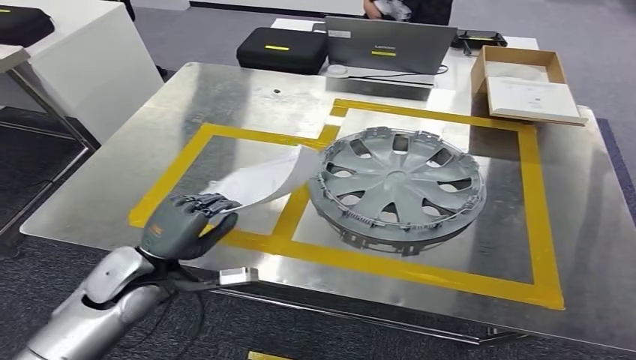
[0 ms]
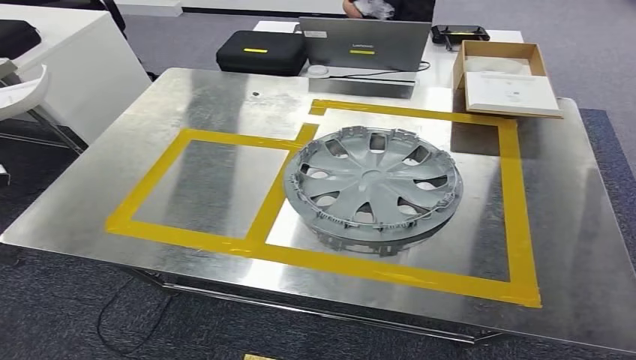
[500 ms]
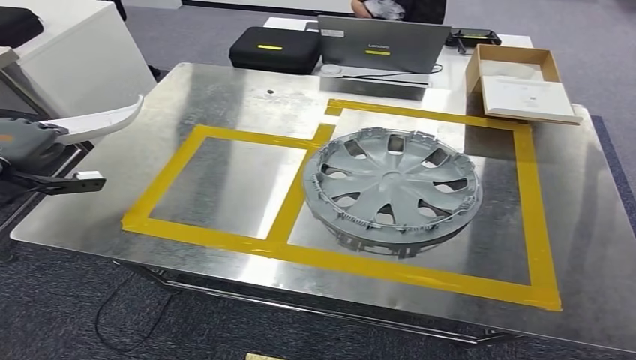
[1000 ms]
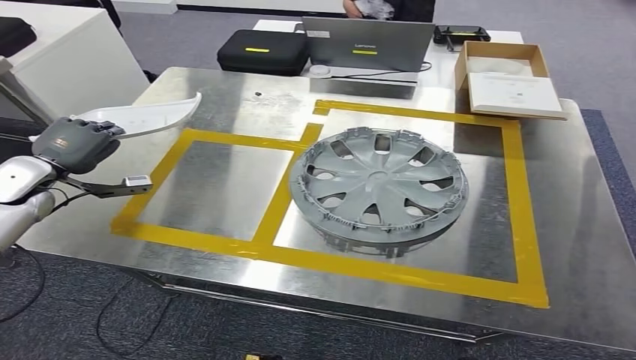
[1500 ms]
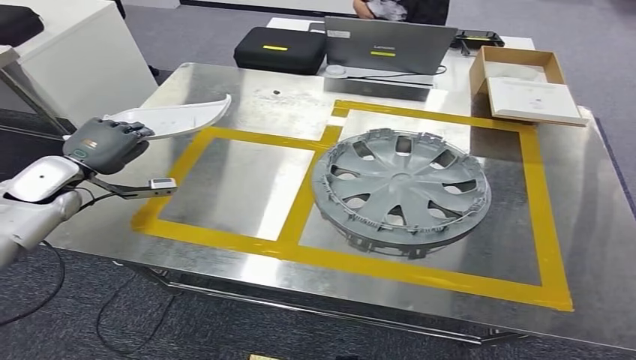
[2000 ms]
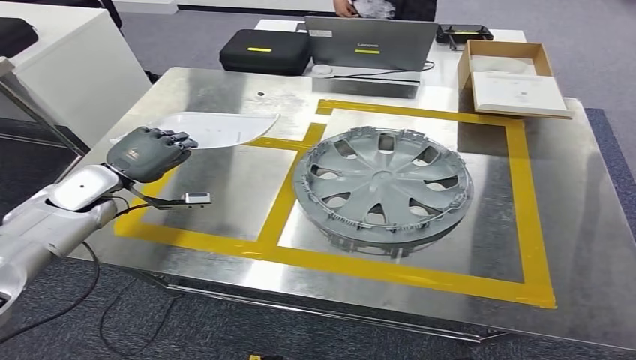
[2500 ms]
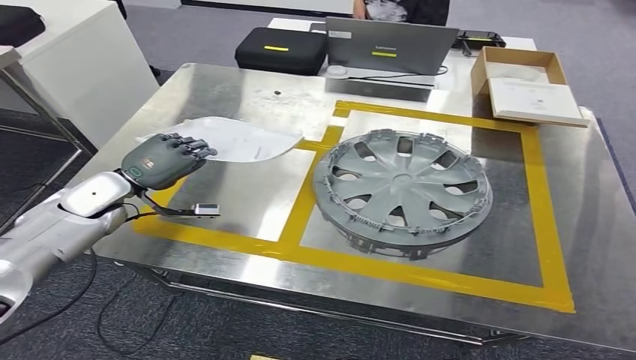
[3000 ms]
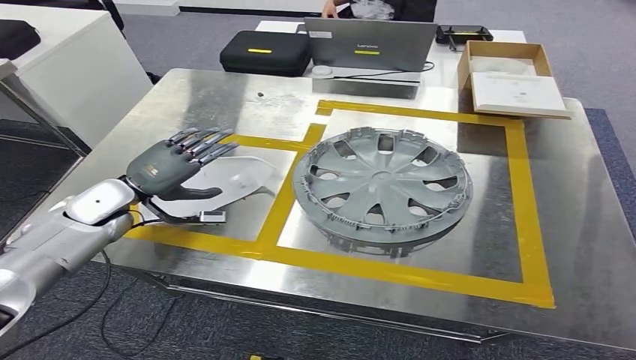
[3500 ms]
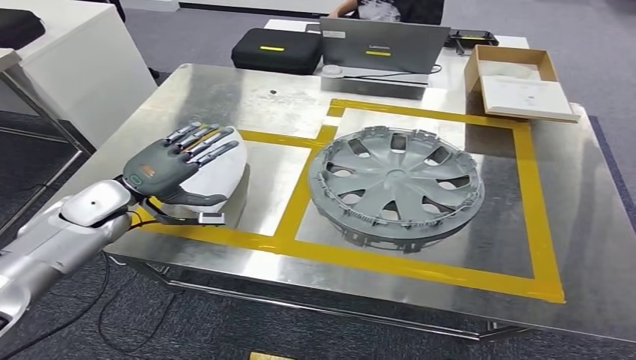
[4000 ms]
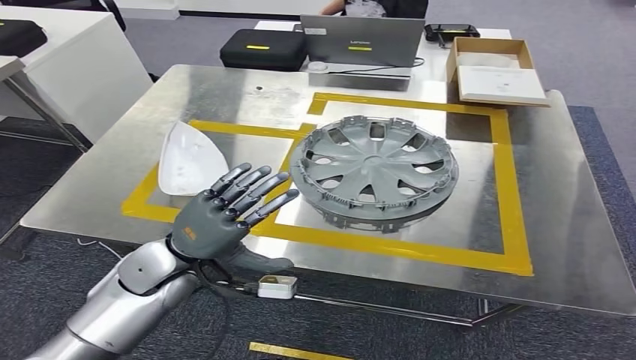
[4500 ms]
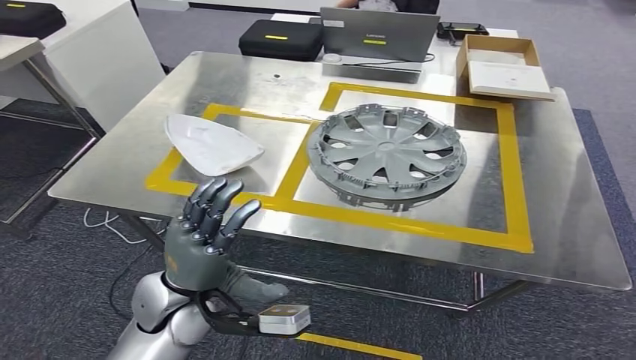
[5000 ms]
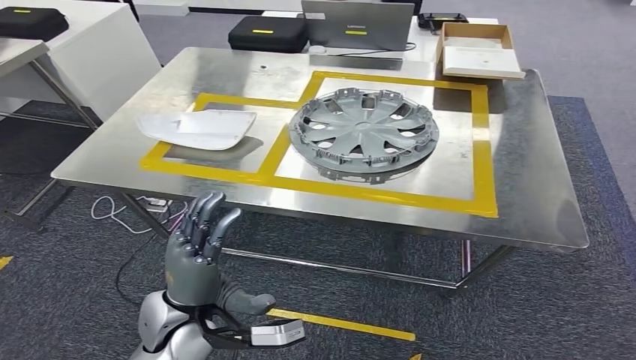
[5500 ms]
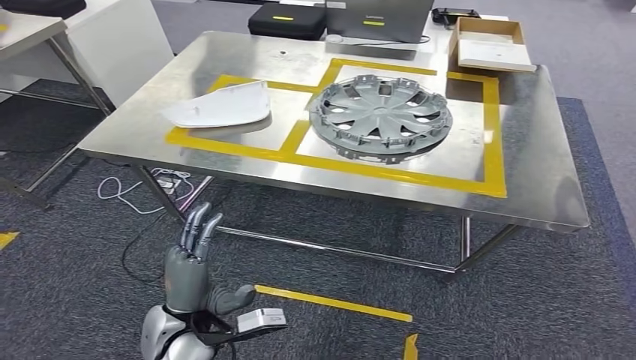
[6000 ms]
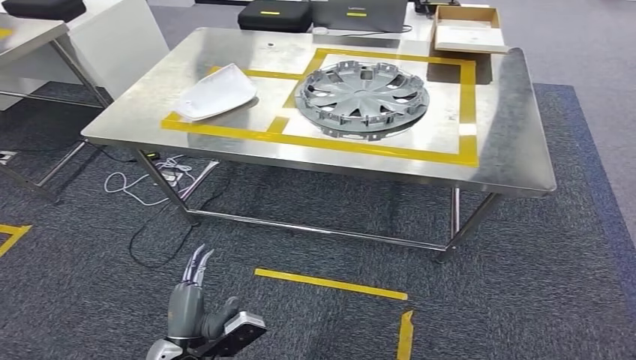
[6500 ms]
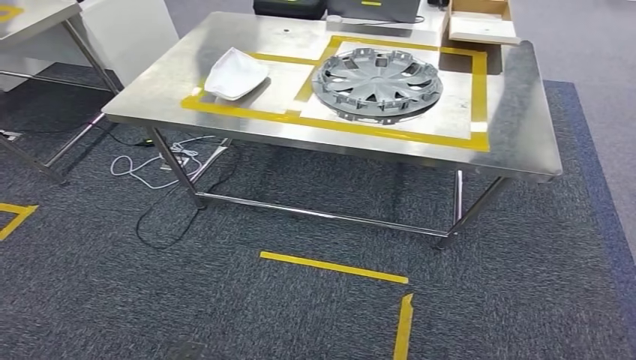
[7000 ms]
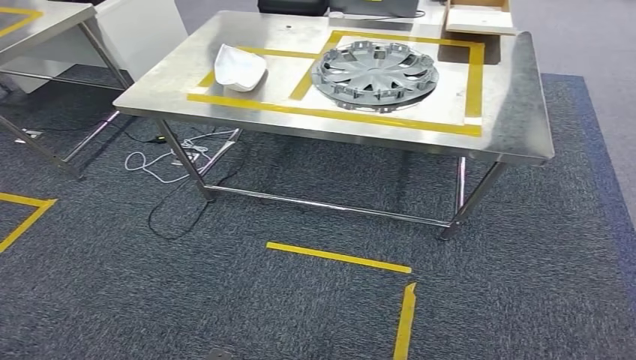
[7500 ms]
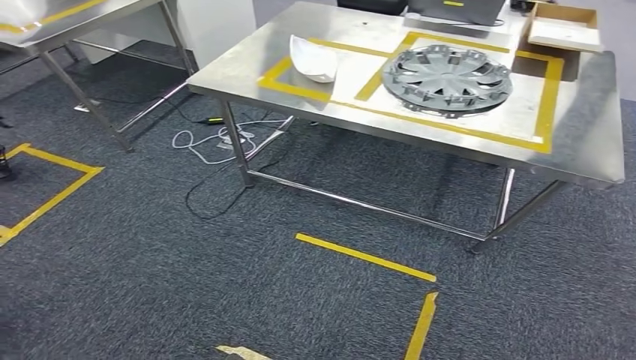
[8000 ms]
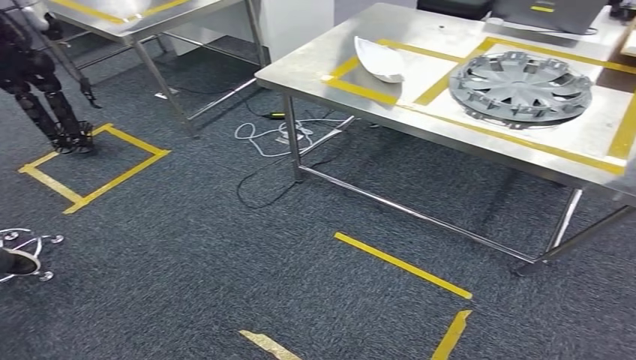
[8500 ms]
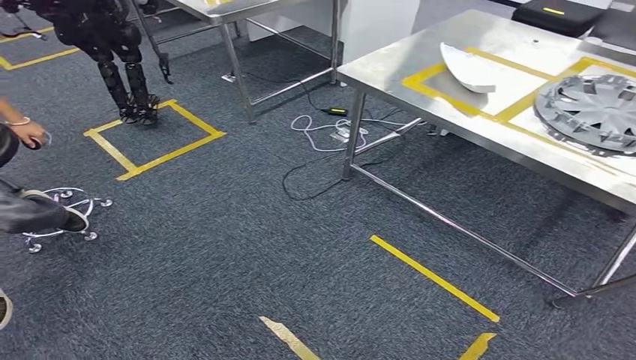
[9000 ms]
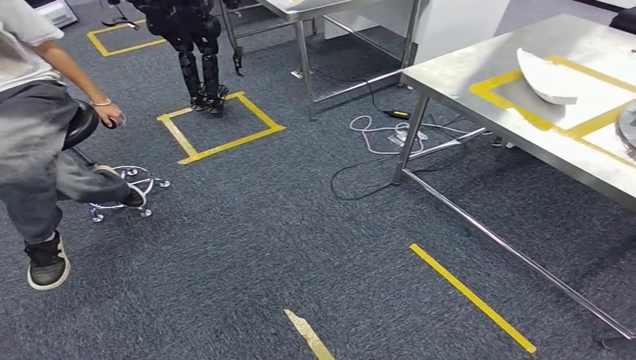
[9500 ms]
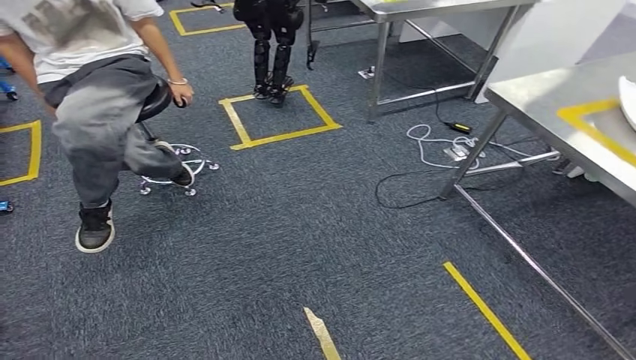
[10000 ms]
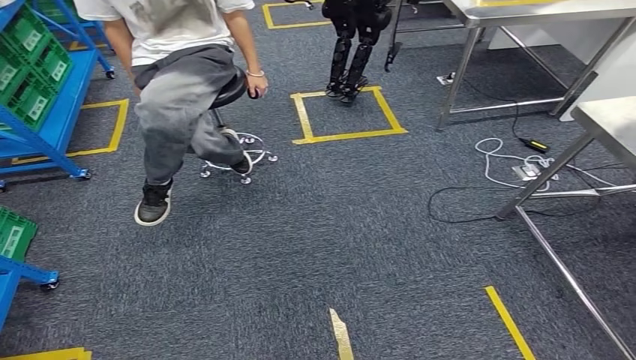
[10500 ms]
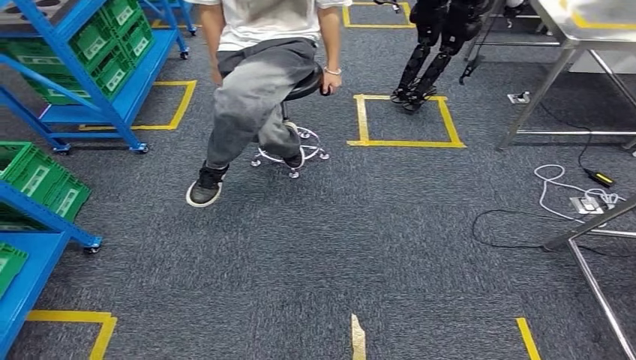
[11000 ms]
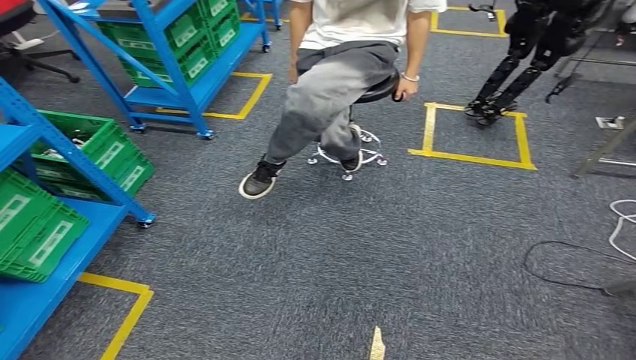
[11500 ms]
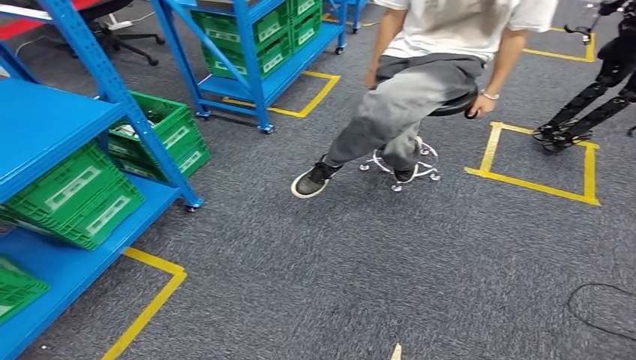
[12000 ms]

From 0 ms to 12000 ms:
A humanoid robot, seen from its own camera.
Step, from 0 ms to 5500 ms: Insert the small parts into the corresponding holes on the workbench.

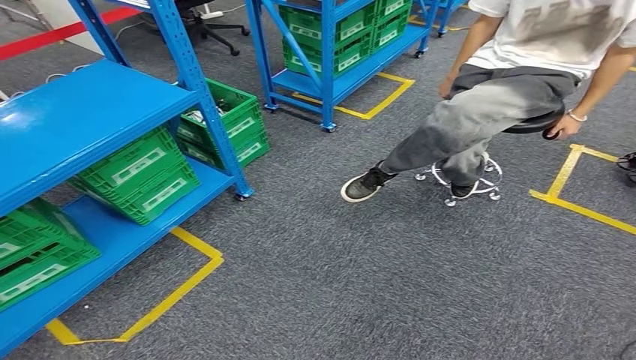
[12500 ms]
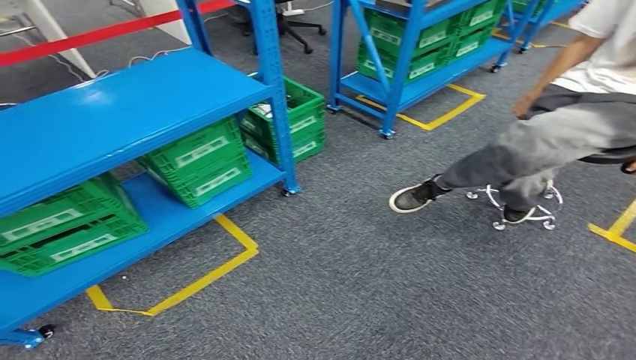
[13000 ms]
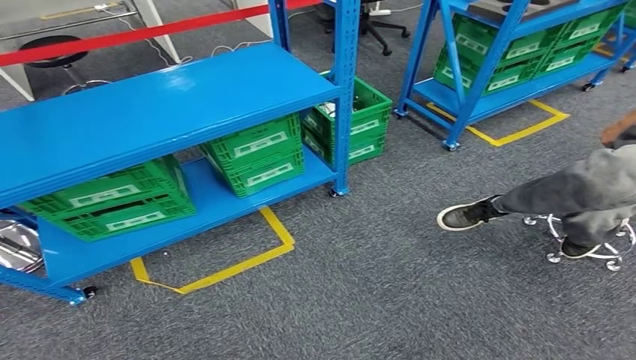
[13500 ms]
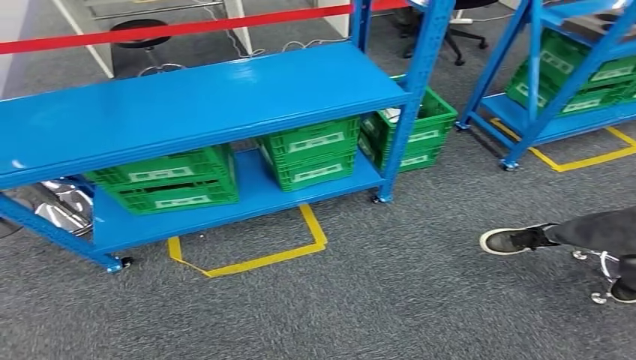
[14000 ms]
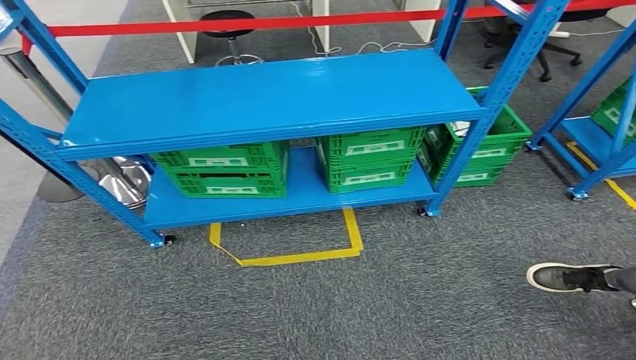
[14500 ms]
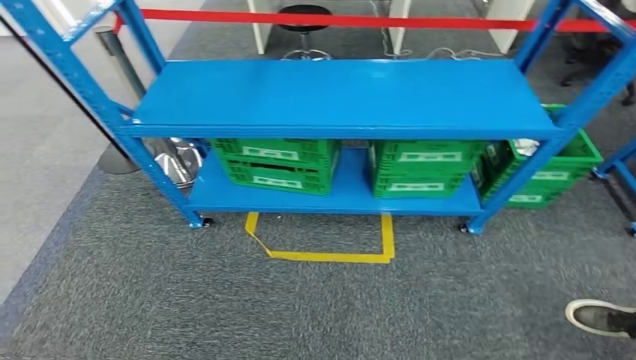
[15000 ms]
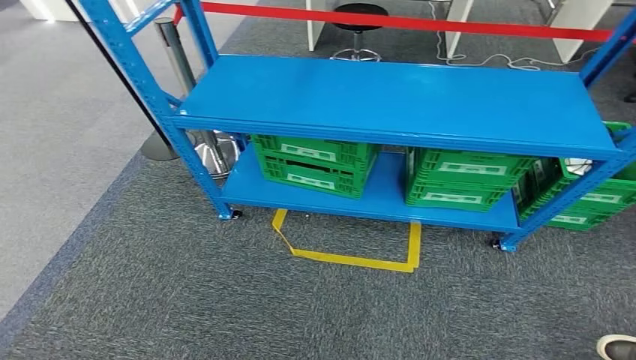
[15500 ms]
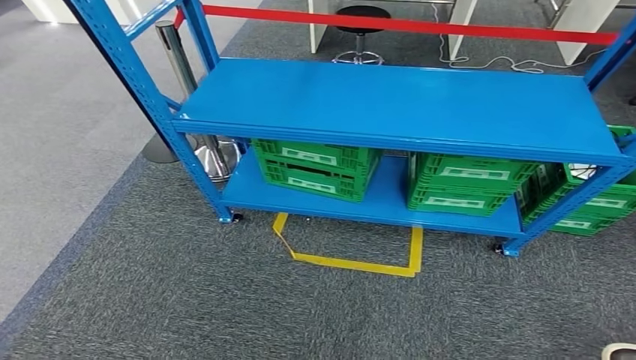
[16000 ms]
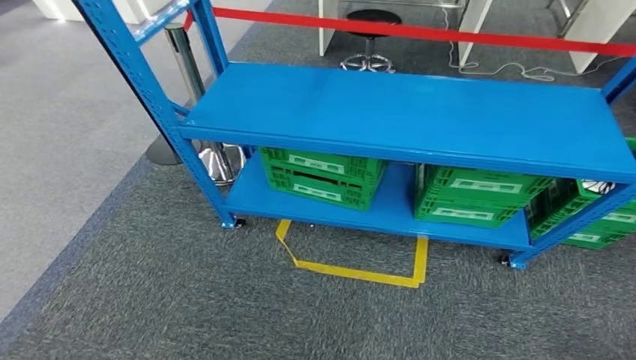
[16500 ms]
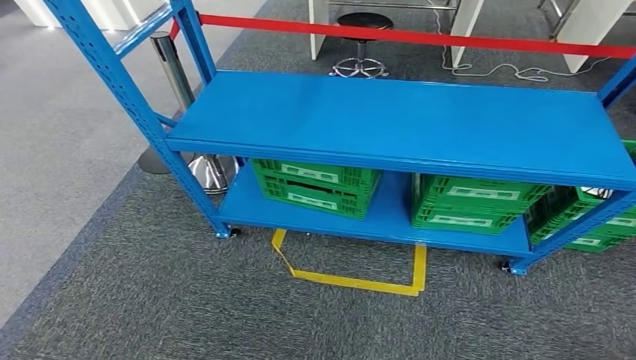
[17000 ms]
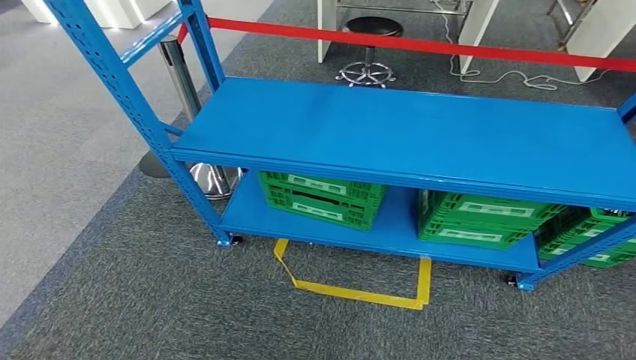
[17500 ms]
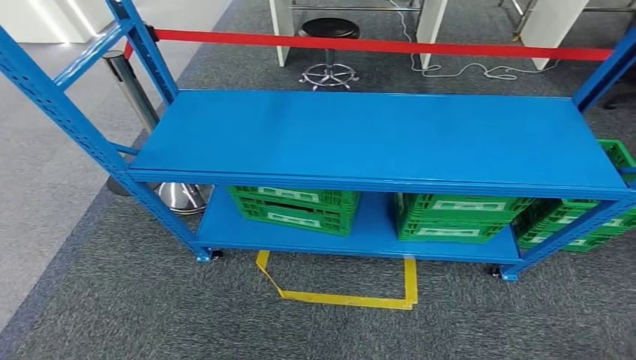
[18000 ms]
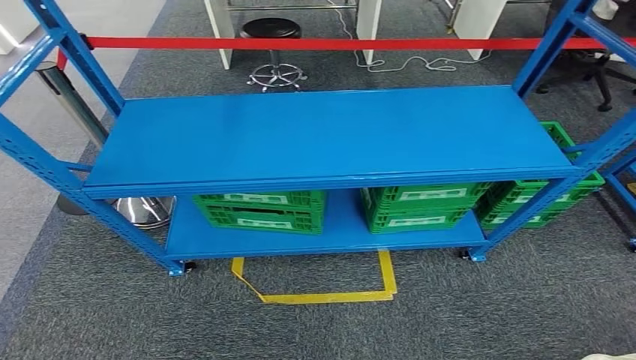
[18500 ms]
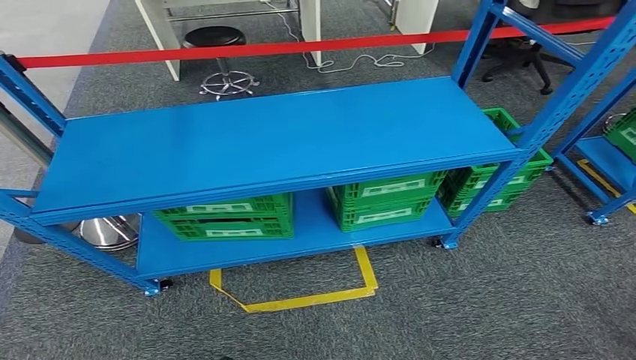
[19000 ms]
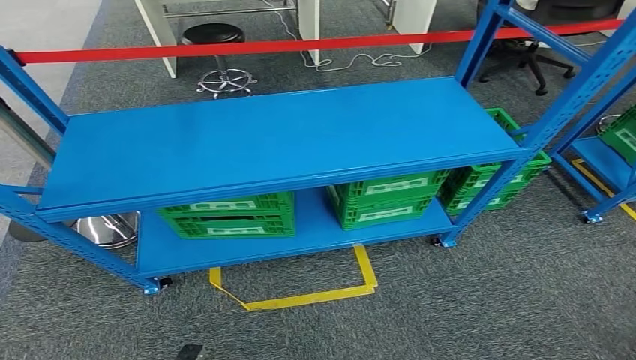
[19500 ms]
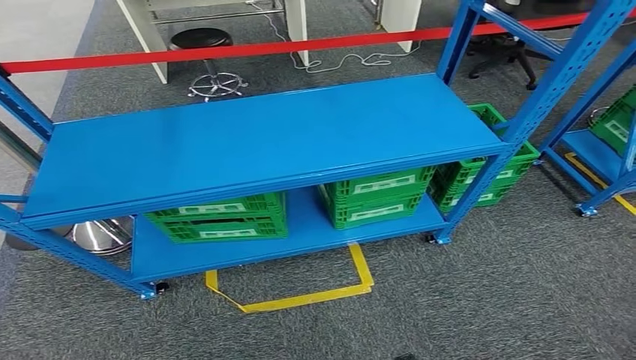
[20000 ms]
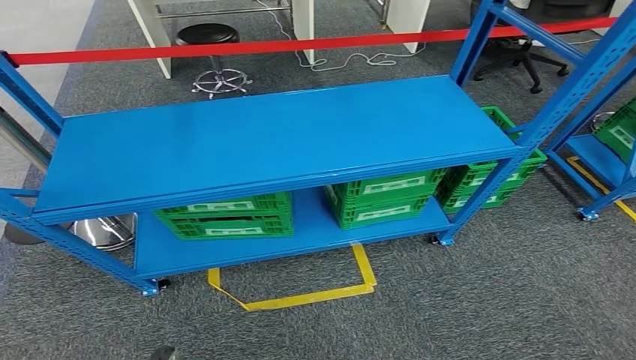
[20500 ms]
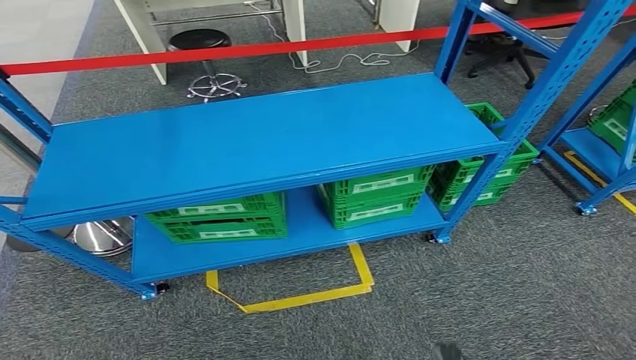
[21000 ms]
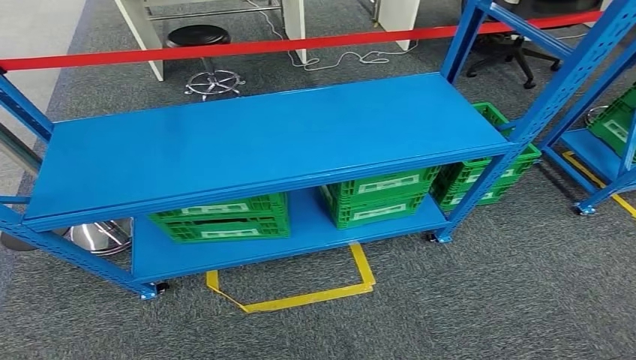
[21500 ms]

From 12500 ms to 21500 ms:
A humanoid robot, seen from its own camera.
Step, from 12500 ms to 21500 ms: Move to the initial position of the workbench.
From 19500 ms to 21500 ms: The left hand goes forward and backward, some 10 cm each way, reversing 2 times. The right hand travels to the right by approximately 10 cm, and travels backward and back again, approximately 5 cm each way.
